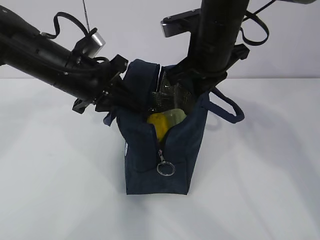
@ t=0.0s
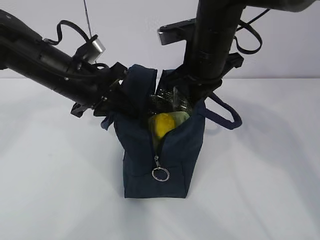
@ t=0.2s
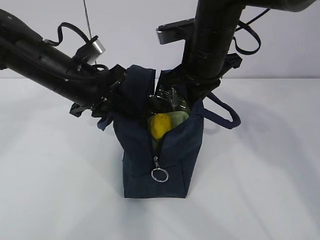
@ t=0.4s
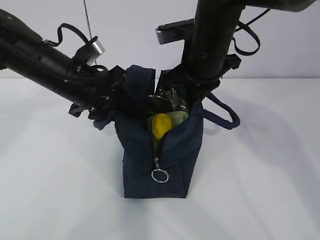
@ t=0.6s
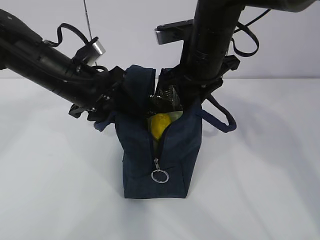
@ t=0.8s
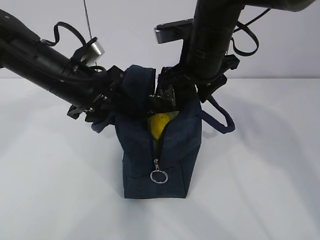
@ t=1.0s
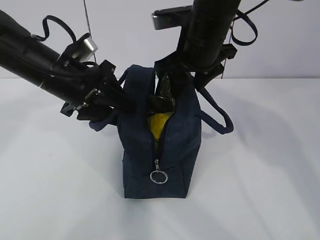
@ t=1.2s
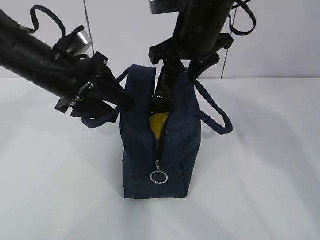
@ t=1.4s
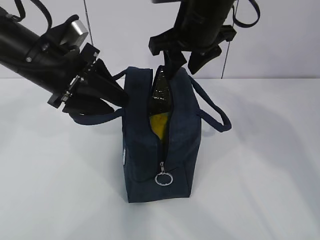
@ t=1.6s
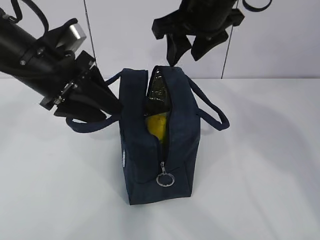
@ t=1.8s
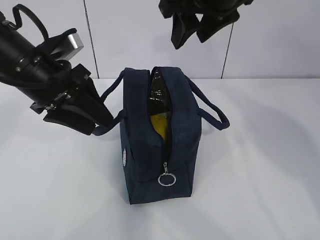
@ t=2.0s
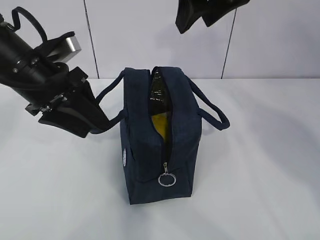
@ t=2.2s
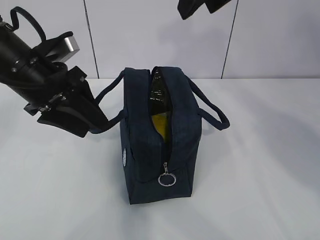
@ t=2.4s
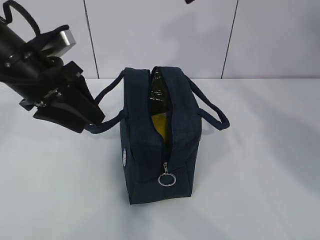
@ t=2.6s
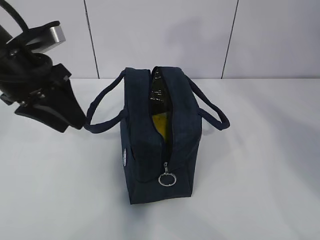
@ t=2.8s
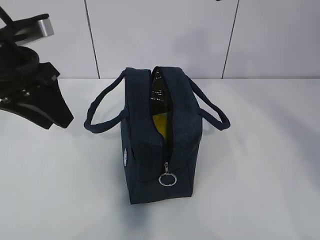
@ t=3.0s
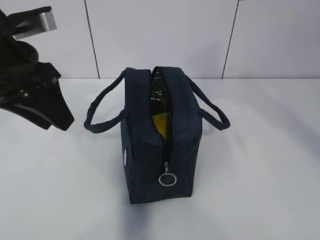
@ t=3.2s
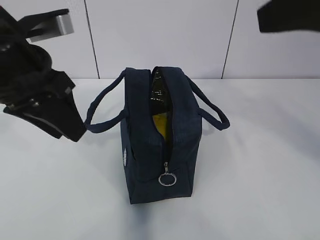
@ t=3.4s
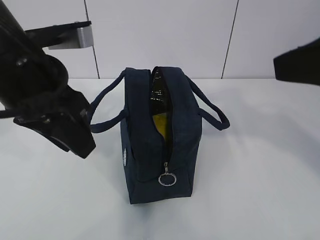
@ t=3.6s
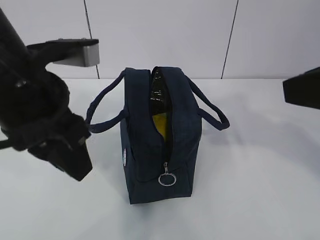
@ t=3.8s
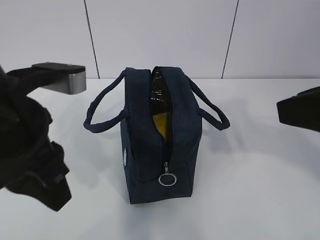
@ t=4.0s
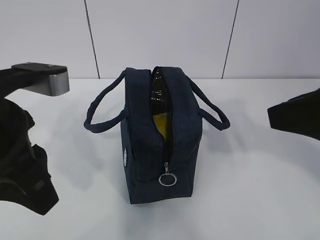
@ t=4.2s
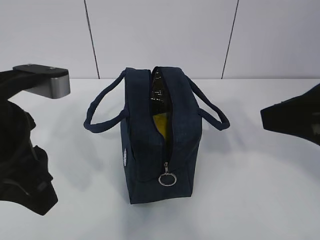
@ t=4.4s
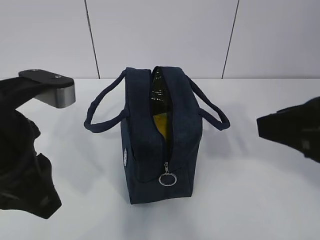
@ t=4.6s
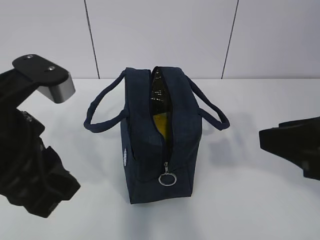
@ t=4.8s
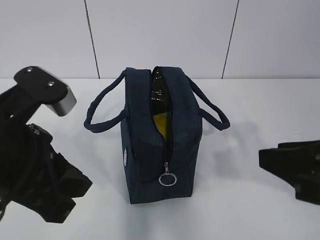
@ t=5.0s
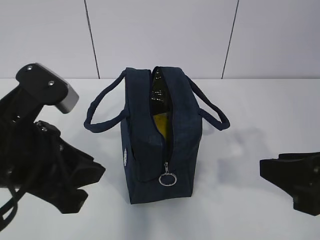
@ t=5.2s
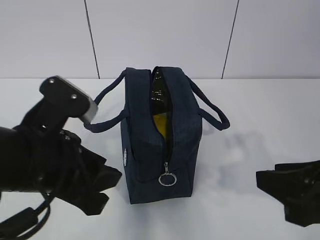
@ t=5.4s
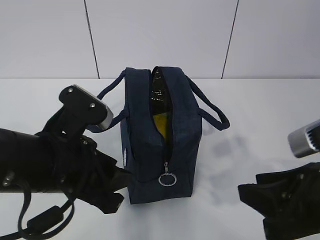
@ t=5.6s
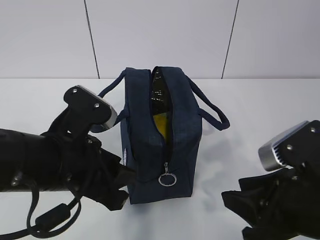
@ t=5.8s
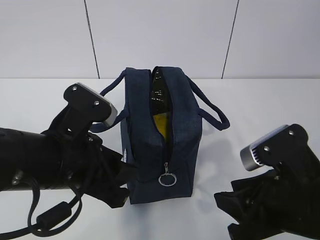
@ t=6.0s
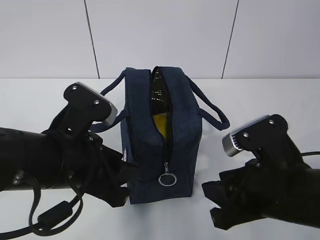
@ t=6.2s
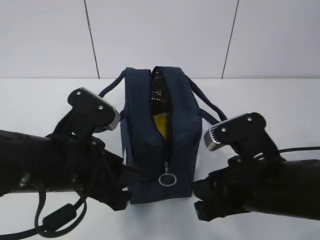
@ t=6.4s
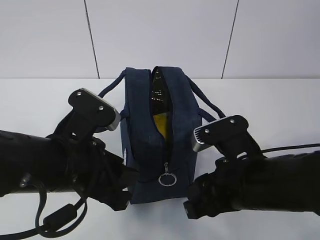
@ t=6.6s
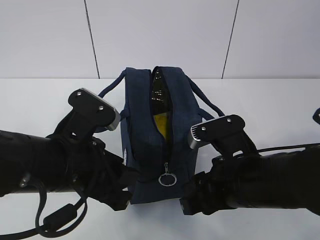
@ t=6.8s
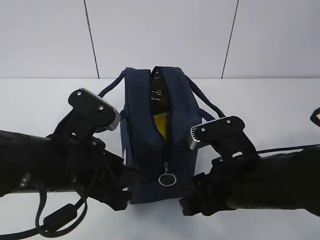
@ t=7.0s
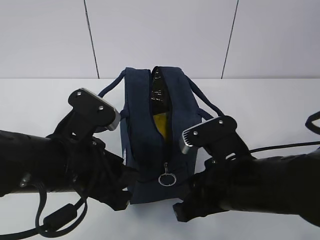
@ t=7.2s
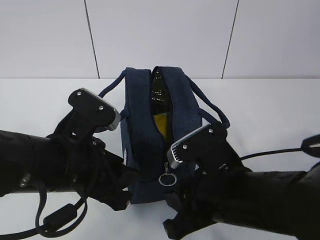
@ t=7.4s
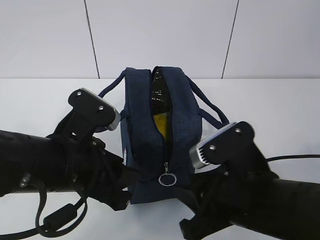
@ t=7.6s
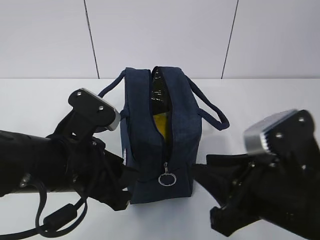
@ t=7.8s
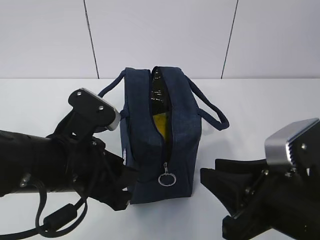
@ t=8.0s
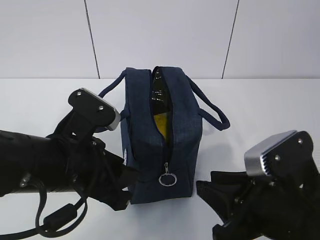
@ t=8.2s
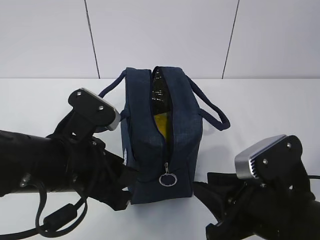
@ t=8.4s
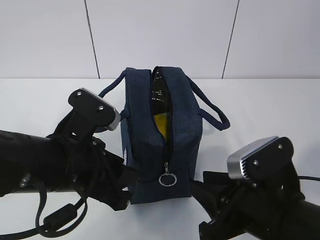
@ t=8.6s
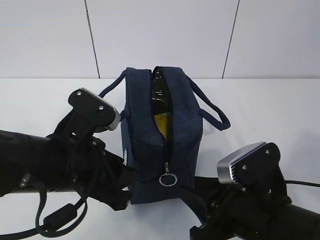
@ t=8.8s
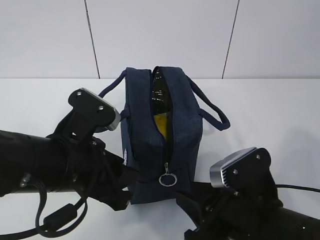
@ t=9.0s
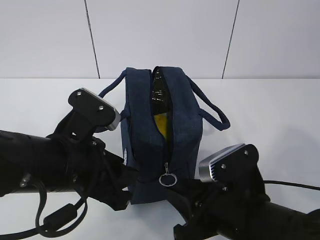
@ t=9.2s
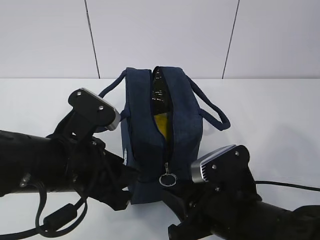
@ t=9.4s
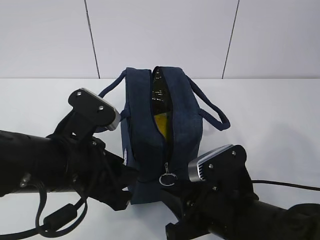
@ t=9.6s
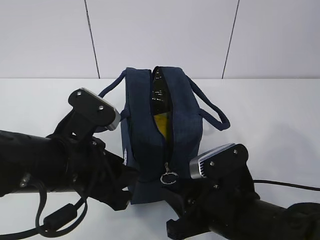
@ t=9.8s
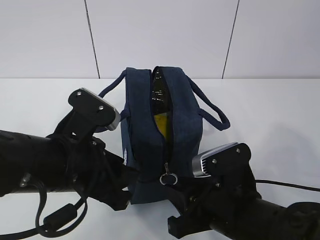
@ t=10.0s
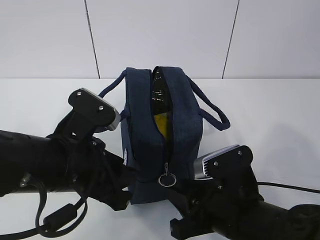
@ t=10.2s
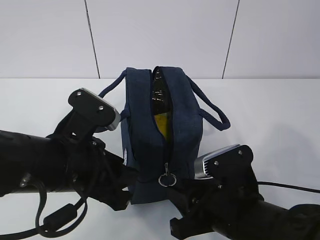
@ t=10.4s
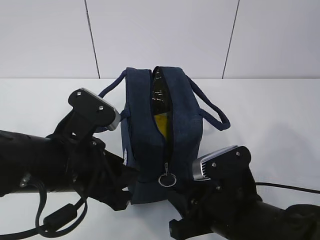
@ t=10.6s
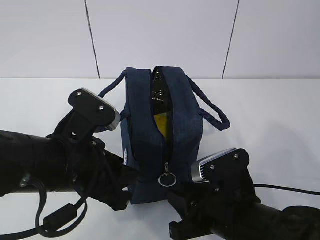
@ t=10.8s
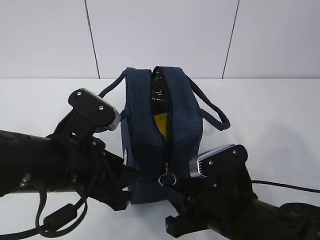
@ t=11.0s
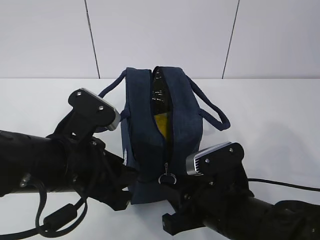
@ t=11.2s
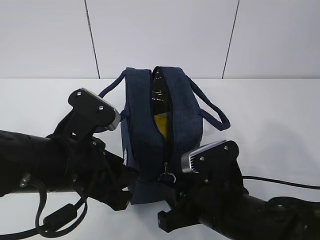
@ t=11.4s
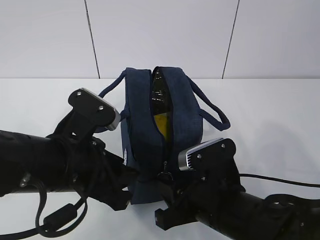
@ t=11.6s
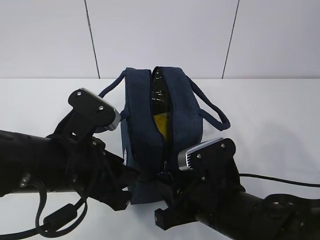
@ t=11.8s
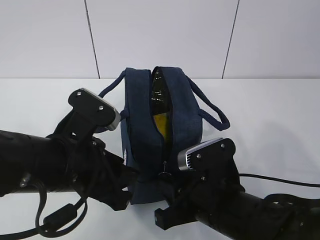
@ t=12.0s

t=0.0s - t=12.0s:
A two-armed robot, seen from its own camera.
t=0.0s - t=1.6s: The right gripper opens its fingers; the left gripper opens its fingers.
t=1.6s - t=3.0s: The right gripper heads upward, backward and to the right, covering roughly 20 cm, while the left gripper changes place by approximately 5 cm.
t=3.0s - t=4.4s: The right gripper shifts some 15 cm downward, backward and to the right, while the left gripper moves backward, about 10 cm, and closes up.
t=4.4s - t=6.0s: The right gripper travels downward by about 15 cm, while the left gripper goes some 10 cm downward, and opens.
t=6.0s - t=7.6s: The right gripper shifts roughly 5 cm to the left.
t=7.6s - t=10.4s: The grippers move only a little.
t=10.4s - t=12.0s: The grippers make only small movements.

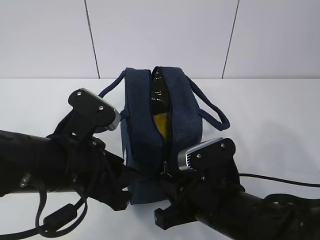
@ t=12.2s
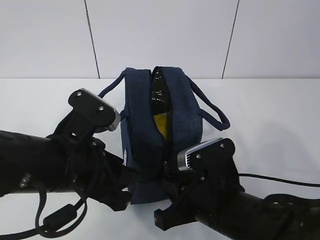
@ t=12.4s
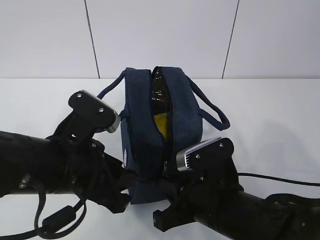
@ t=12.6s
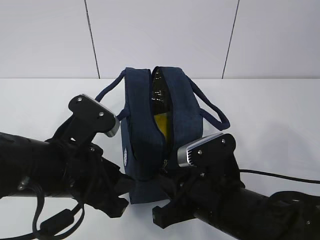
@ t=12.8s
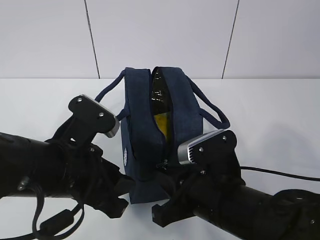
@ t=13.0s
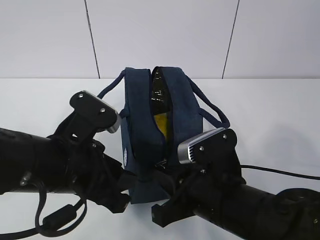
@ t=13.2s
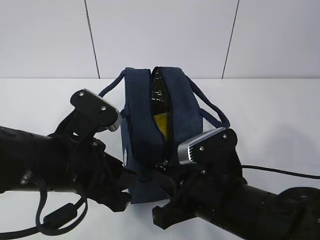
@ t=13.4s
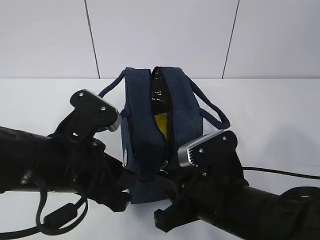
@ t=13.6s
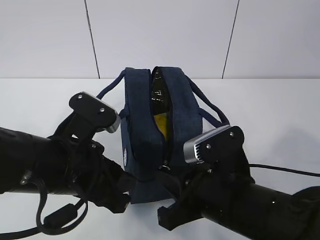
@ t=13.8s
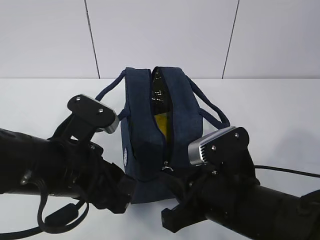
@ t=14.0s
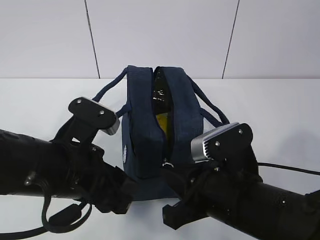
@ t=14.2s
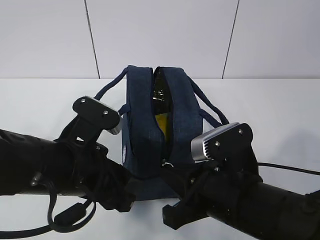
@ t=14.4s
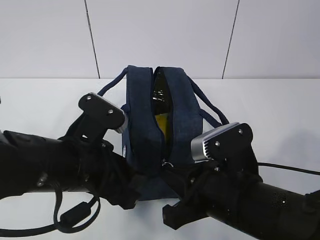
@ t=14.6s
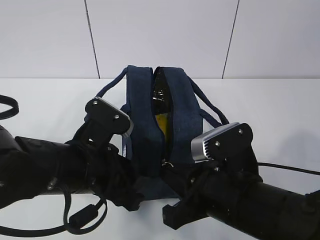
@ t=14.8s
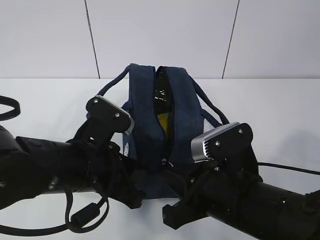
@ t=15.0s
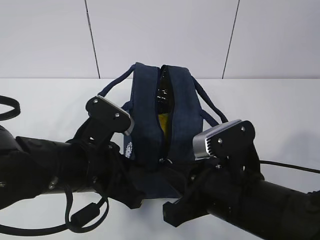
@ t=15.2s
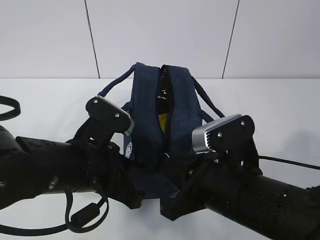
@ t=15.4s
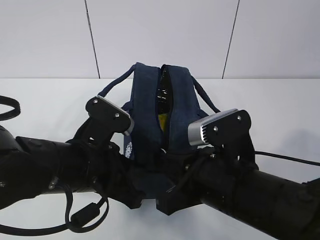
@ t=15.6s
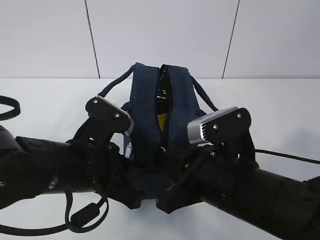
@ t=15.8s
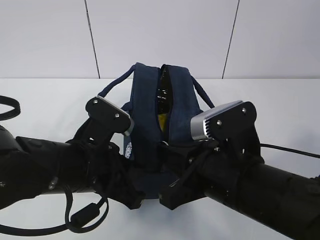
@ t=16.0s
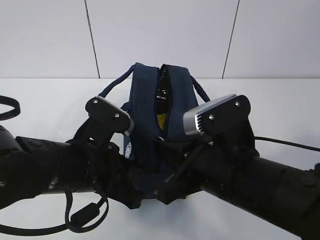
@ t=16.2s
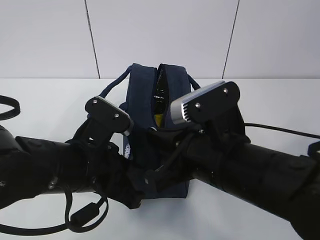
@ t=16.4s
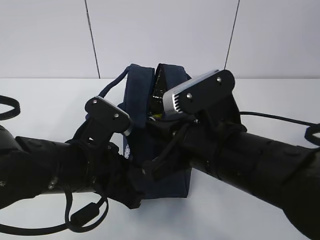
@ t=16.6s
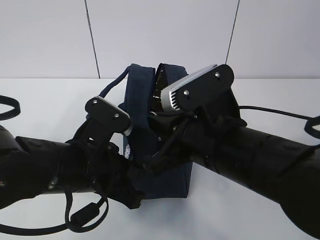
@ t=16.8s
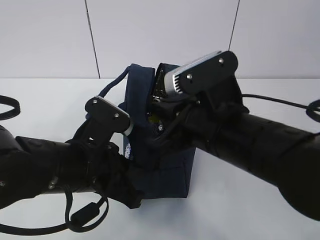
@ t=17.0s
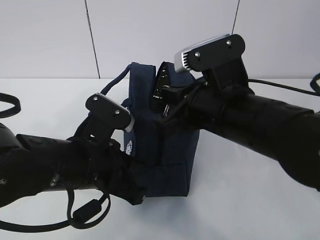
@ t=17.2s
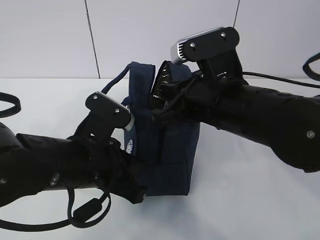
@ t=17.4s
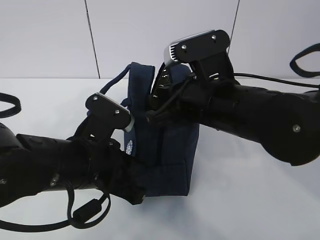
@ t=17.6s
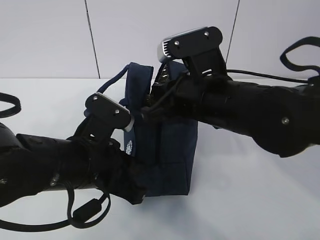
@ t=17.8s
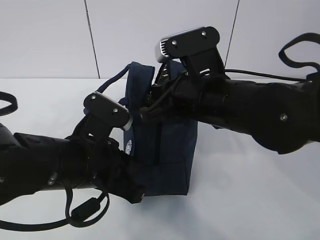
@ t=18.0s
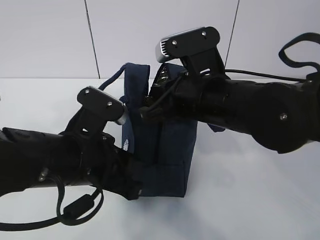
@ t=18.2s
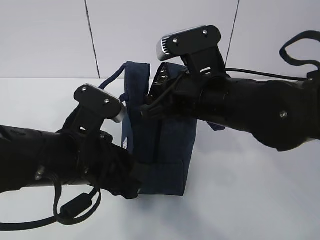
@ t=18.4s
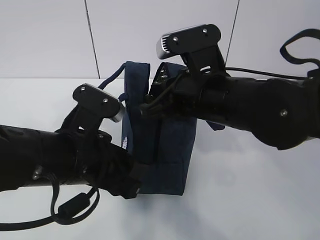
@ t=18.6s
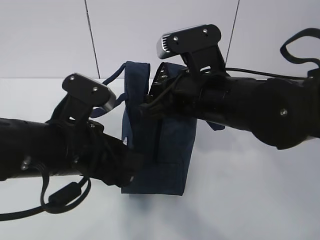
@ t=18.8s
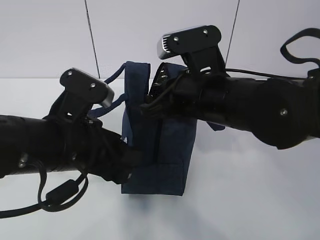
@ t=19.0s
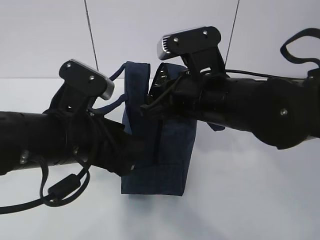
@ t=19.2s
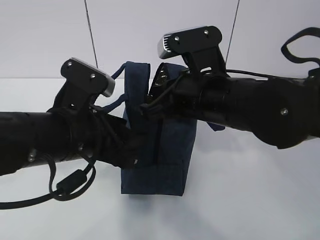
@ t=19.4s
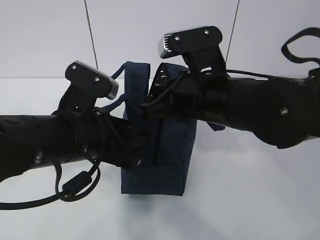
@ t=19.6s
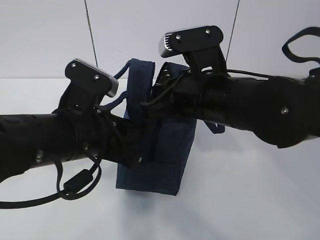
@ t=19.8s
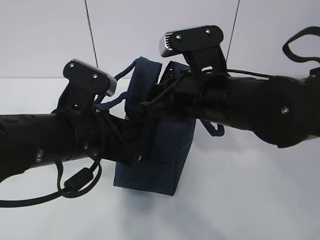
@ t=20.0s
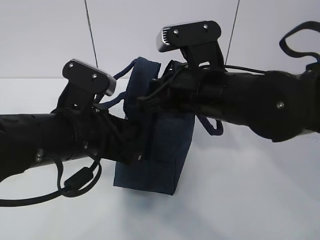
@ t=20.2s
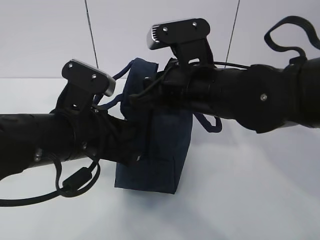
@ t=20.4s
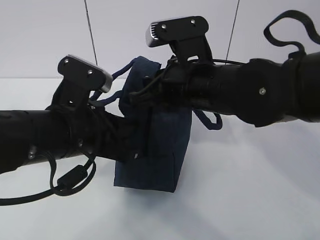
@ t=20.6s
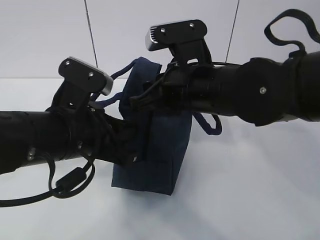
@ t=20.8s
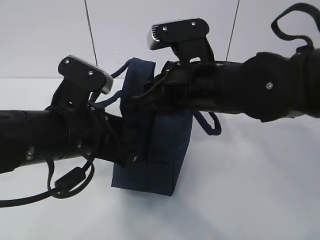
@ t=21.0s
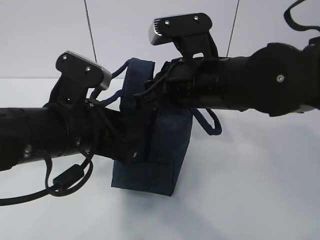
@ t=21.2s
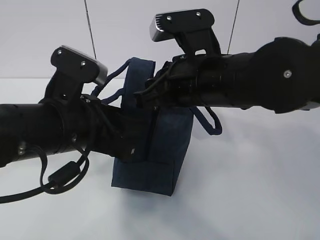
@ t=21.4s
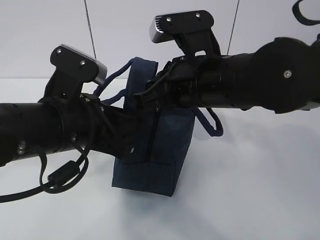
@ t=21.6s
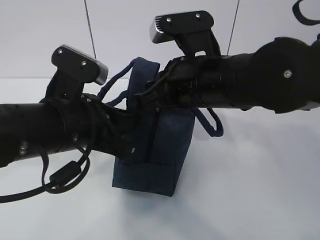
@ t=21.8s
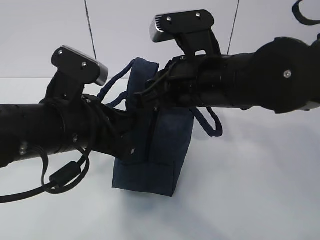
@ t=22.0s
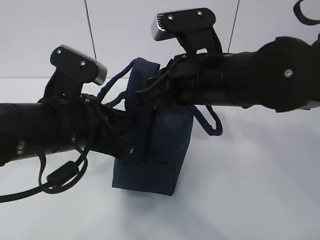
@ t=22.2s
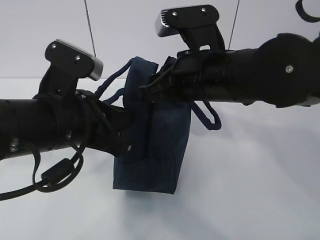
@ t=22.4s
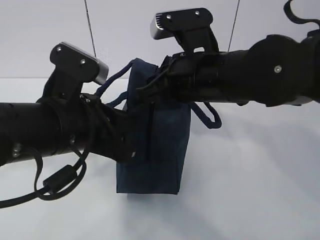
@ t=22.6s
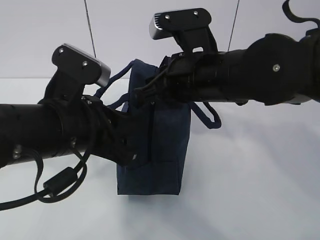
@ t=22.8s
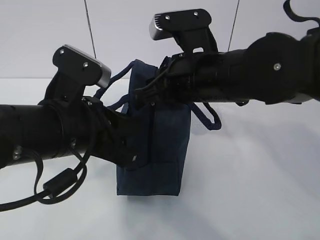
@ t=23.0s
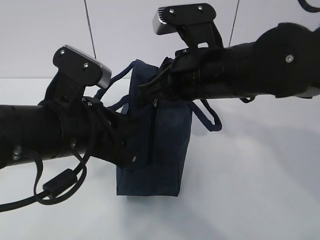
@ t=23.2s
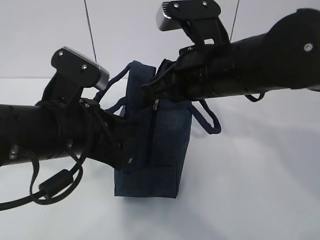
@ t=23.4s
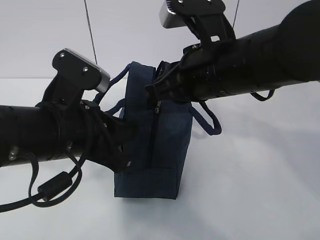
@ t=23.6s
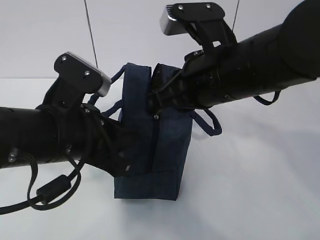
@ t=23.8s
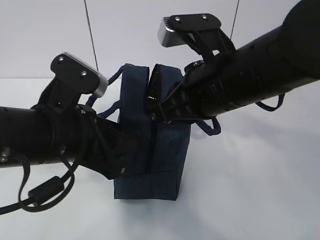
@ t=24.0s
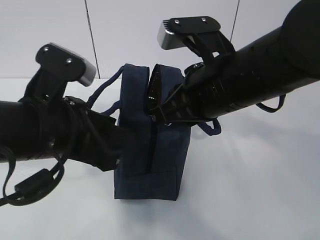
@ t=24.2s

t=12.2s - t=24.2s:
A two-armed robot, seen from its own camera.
t=12.2s - t=13.8s: The grippers move only a little.
t=13.8s - t=15.2s: The left gripper closes up.
t=15.2s - t=16.6s: The right gripper is displaced upward by roughly 5 cm.
t=16.6s - t=18.2s: The right gripper goes about 5 cm forward.
t=18.2s - t=19.8s: The left gripper opens, then closes again.
t=19.8s - t=21.2s: The left gripper opens.
t=21.2s - t=22.6s: The left gripper closes.
t=22.6s - t=24.2s: The left gripper opens.
